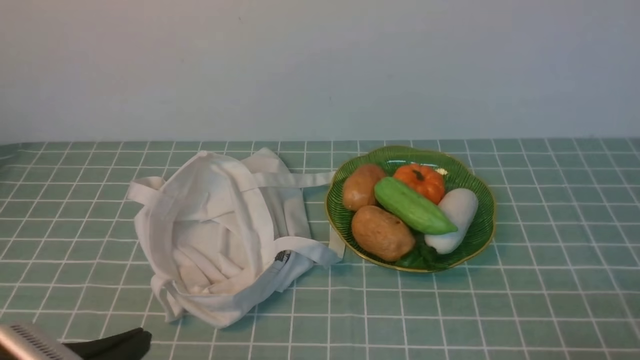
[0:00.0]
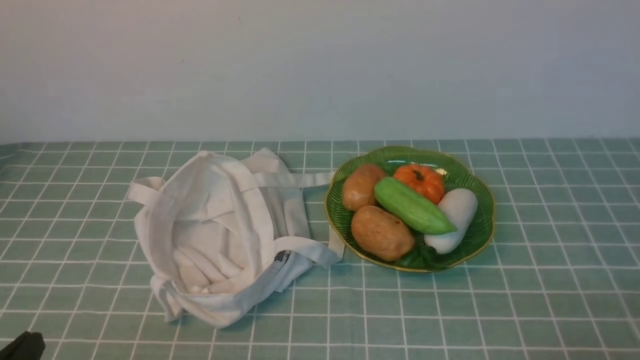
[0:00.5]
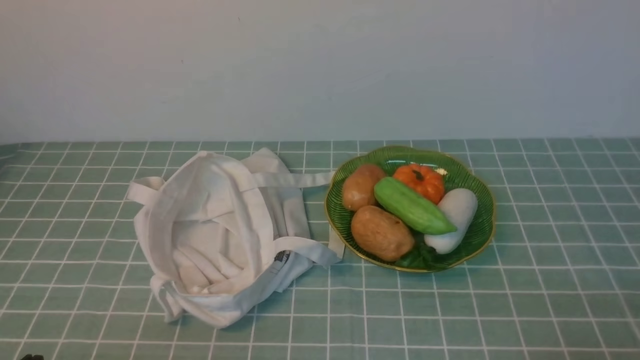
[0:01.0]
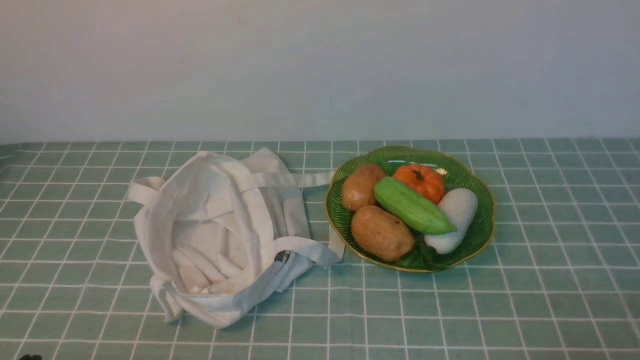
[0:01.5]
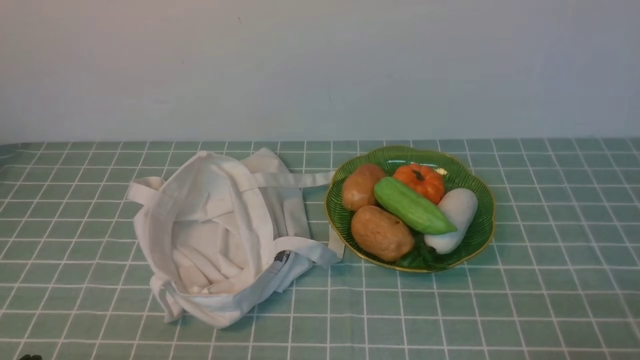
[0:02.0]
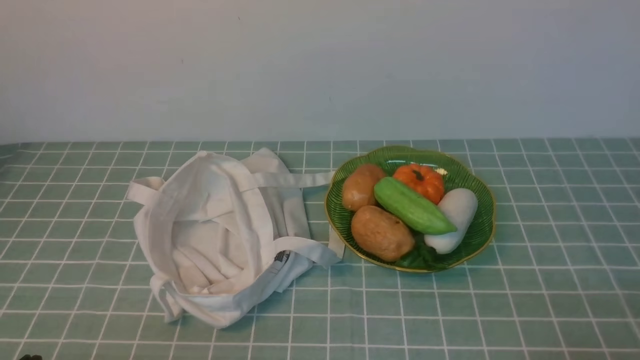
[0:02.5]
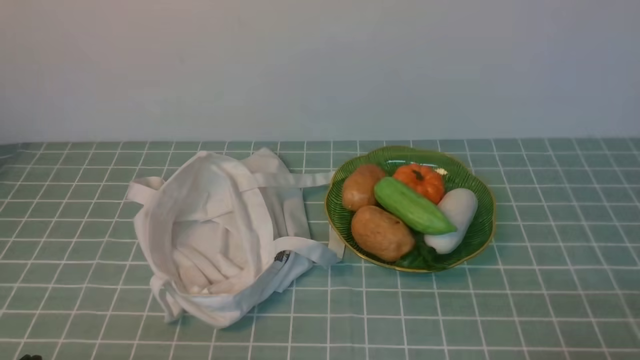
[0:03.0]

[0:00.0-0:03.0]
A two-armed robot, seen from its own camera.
Task of the whole recording: take vegetables from cloth bag on blue coffee tablecloth place on plate.
0:00.0 to 0:01.5: The left gripper ends up approximately 5 cm from where it was.
0:01.5 to 0:03.0: The two grippers keep their place.
